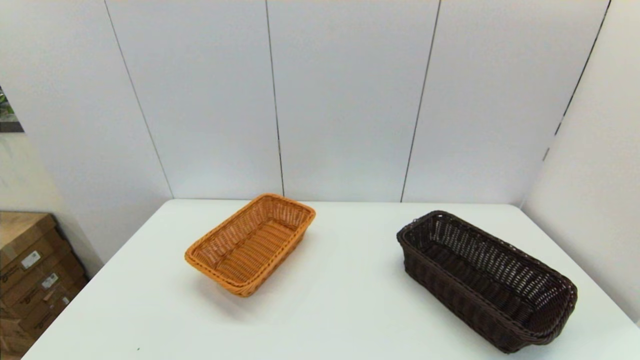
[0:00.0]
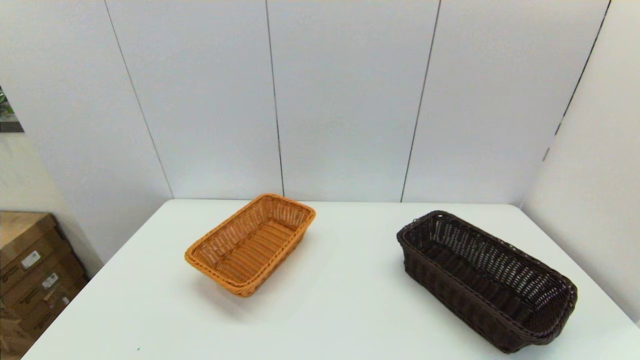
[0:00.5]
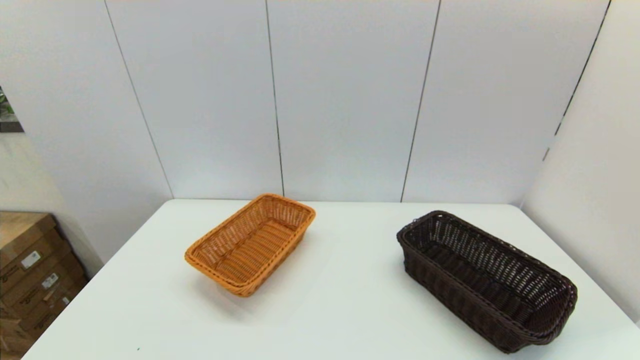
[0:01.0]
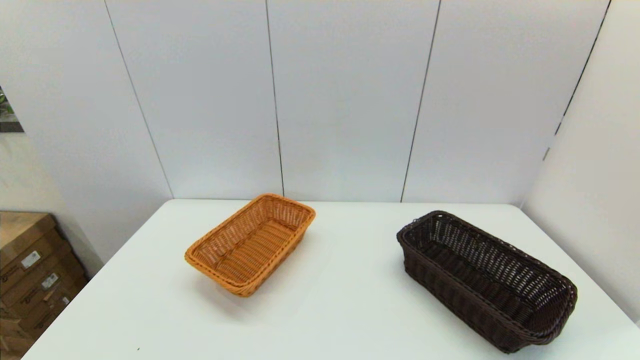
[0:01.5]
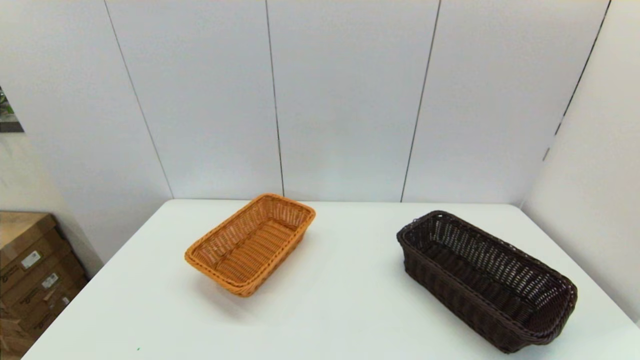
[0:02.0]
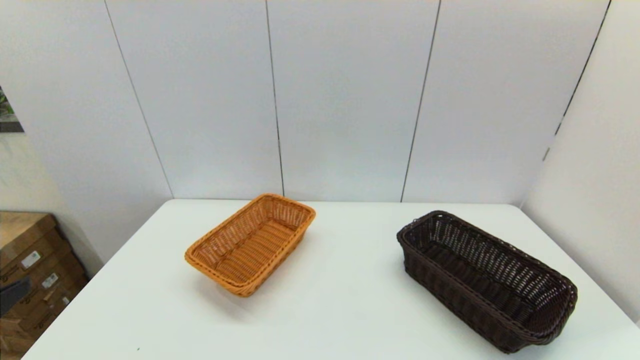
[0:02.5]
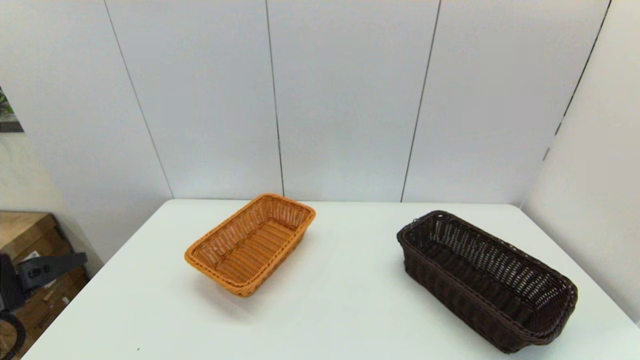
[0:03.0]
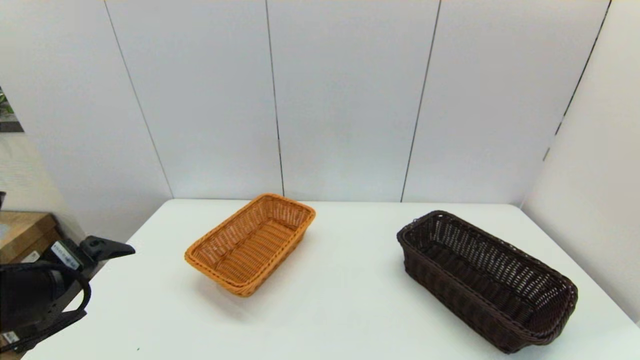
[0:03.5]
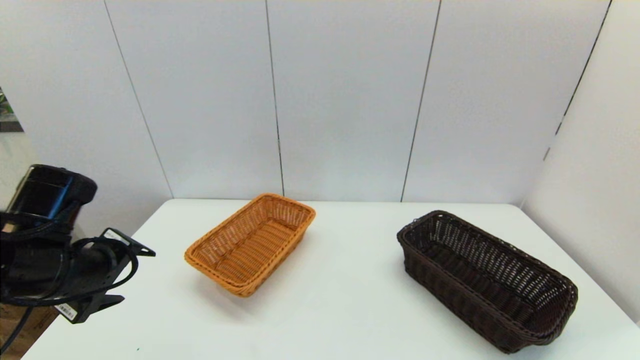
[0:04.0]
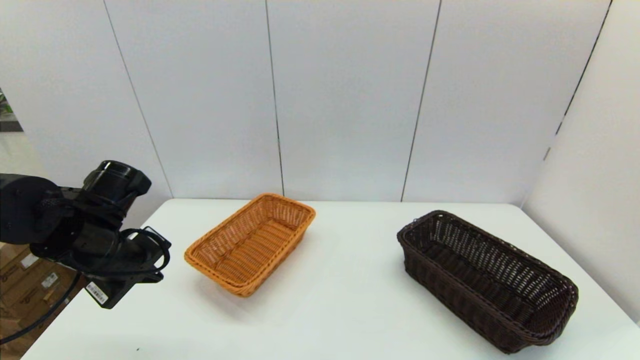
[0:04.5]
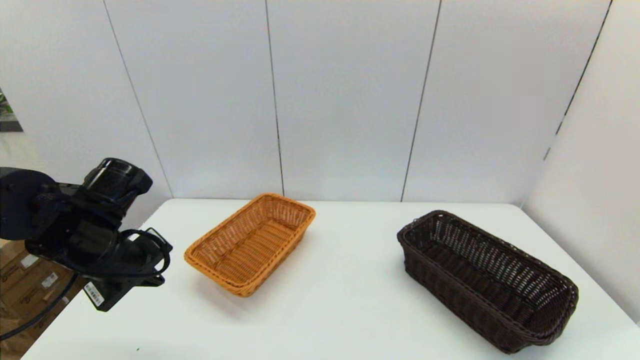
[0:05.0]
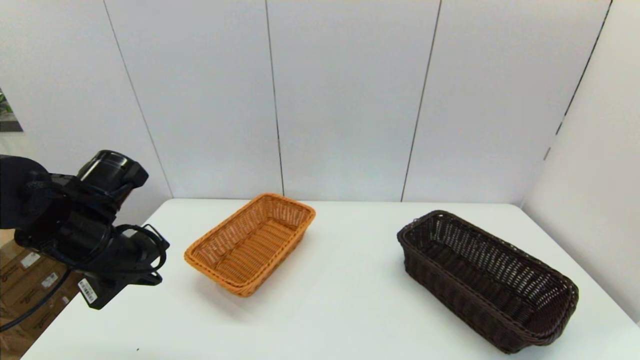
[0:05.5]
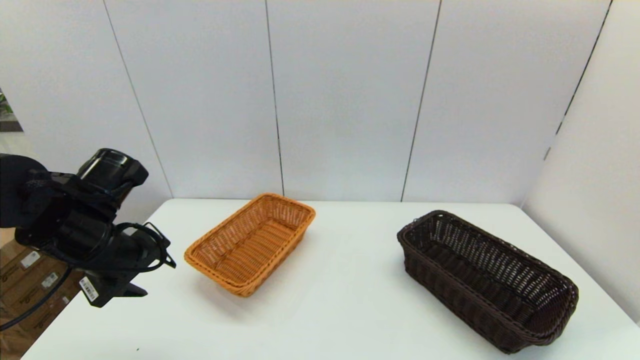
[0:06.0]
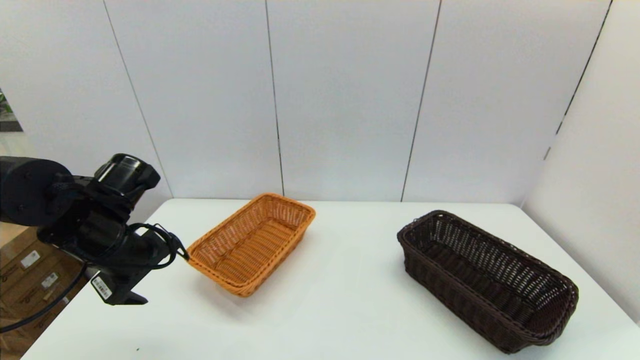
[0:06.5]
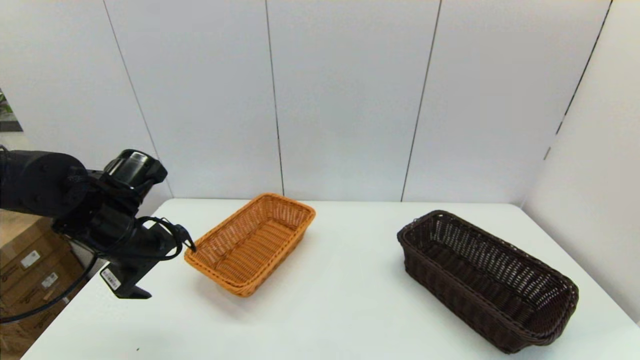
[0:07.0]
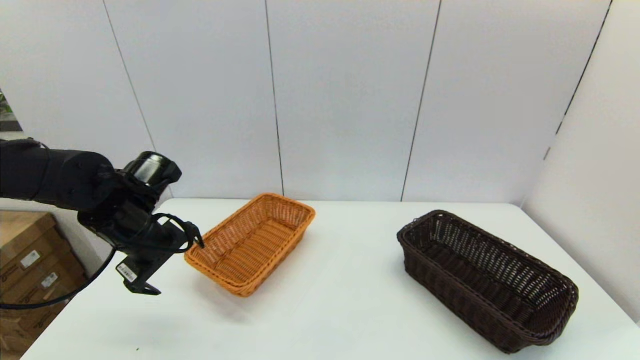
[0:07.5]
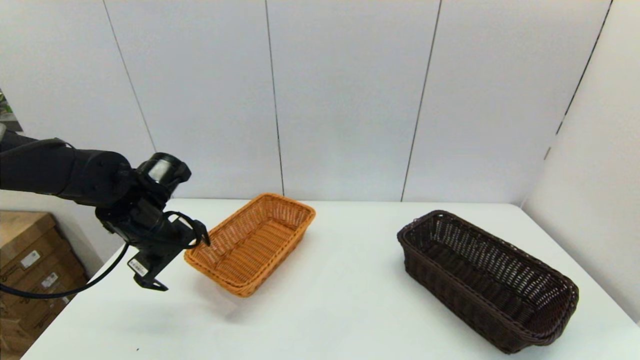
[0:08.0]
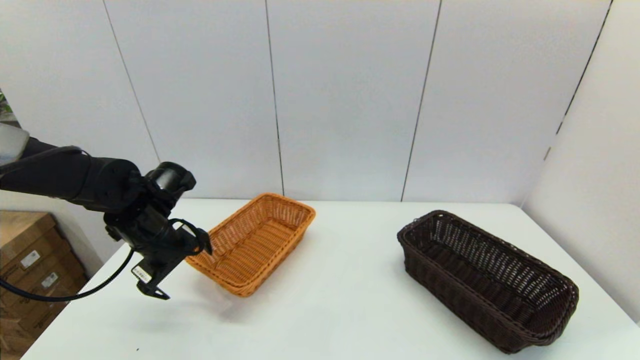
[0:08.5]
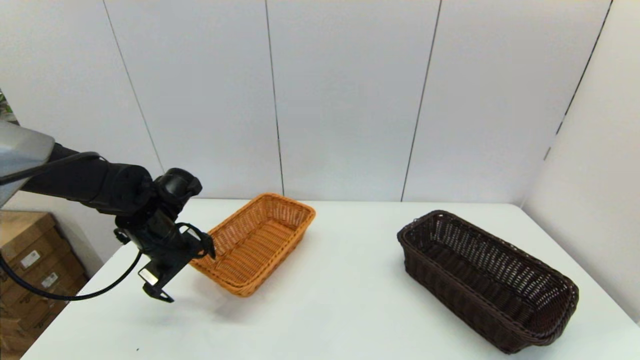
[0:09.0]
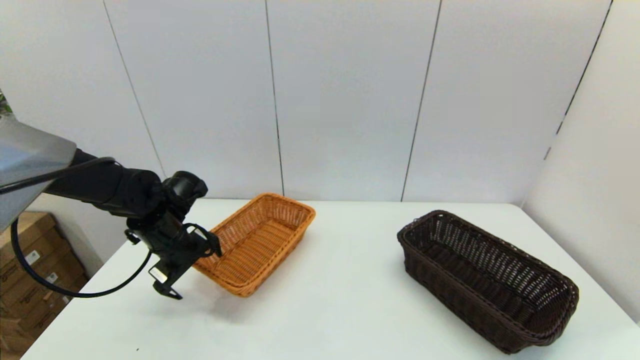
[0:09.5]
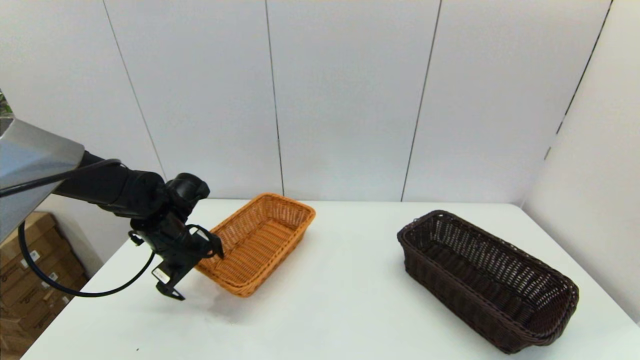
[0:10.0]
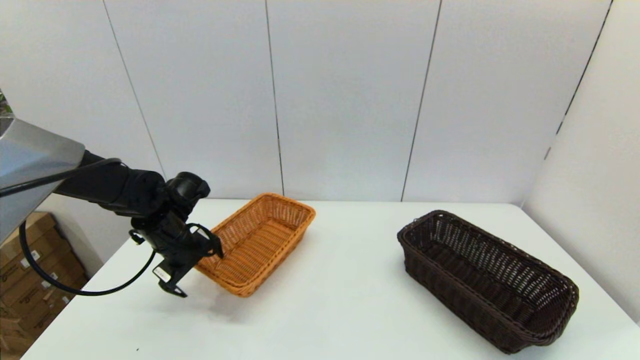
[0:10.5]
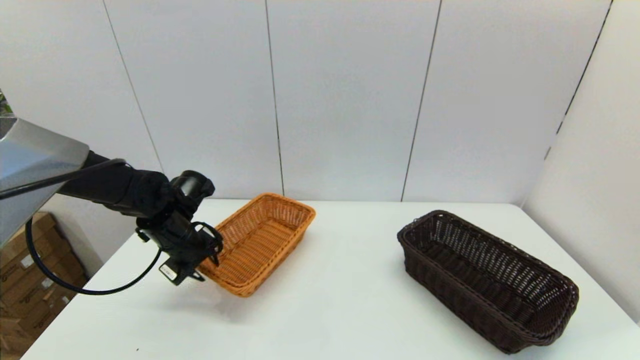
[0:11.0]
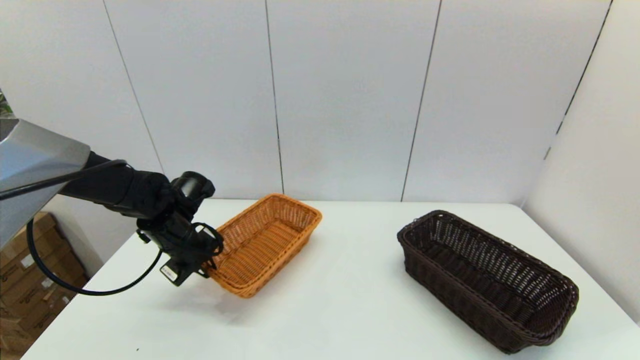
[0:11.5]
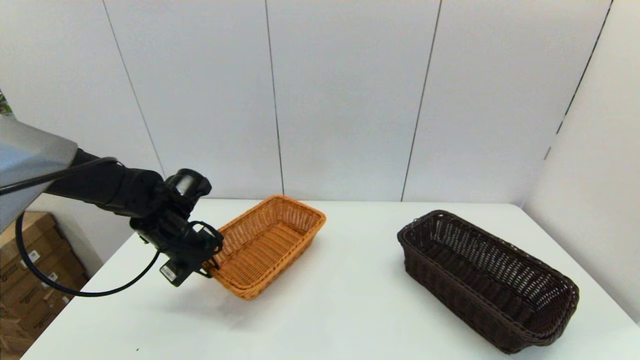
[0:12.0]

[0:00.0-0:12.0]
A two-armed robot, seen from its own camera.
Task of the whole recording: stack a basket on top of another basket.
Step, 0:02.0 to 0:11.5: Grasp the light basket with the left gripper.
0:02.0 to 0:04.0: The left gripper travels forward by approximately 20 cm.
0:04.0 to 0:06.0: The left gripper closes and opens again.
0:06.0 to 0:08.0: The left gripper shifts approximately 5 cm forward, and opens.
0:08.0 to 0:10.0: The left gripper is displaced downward by approximately 5 cm.
0:10.0 to 0:12.0: The left gripper closes.

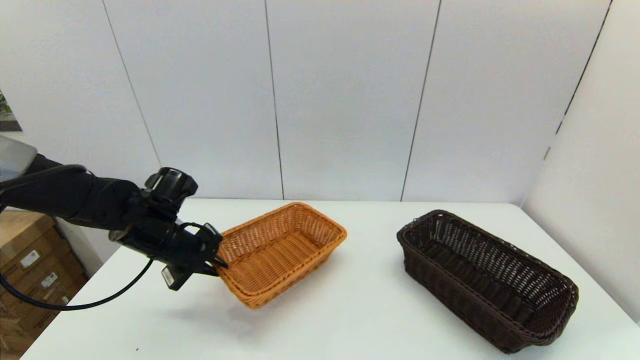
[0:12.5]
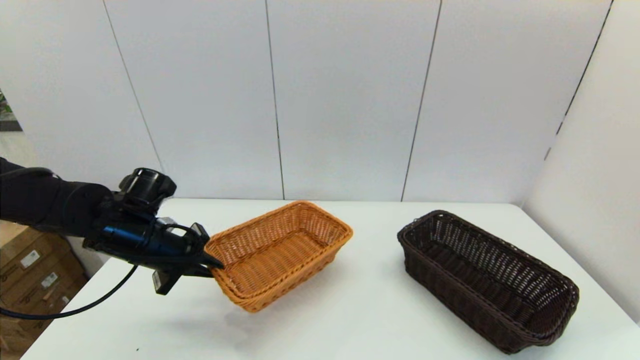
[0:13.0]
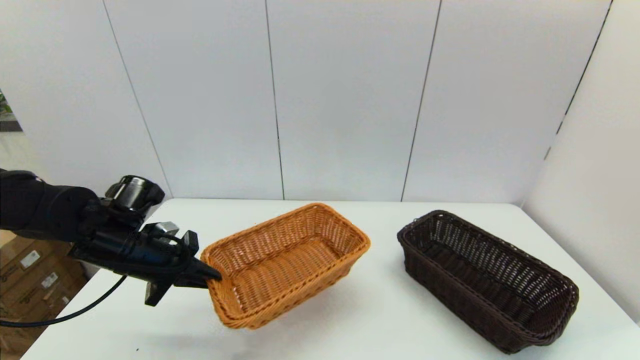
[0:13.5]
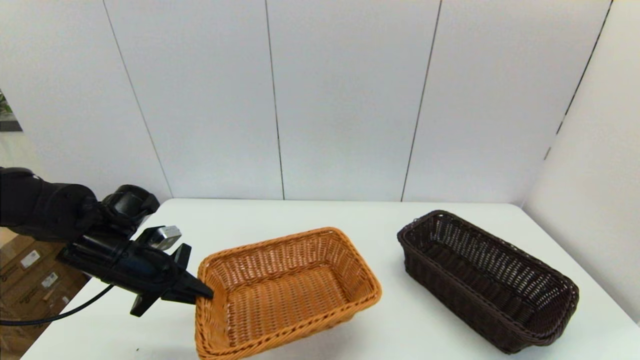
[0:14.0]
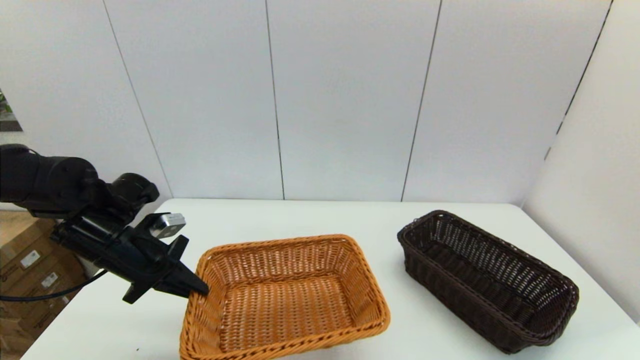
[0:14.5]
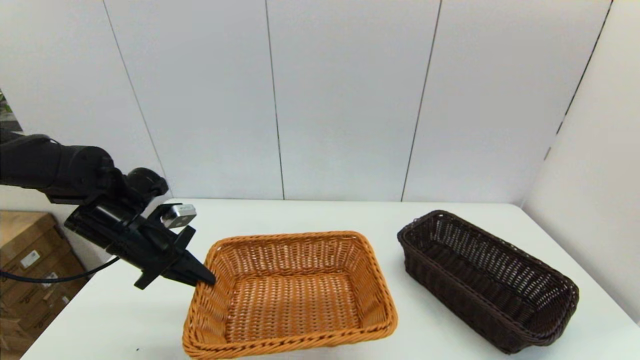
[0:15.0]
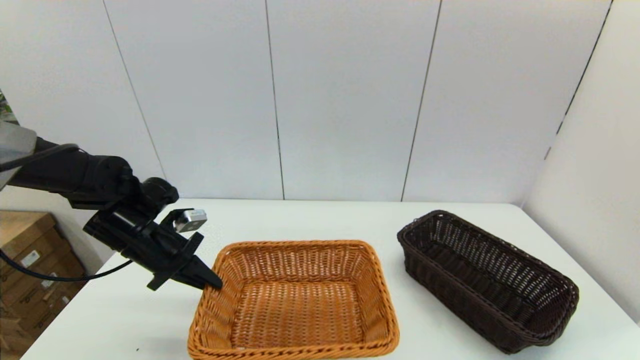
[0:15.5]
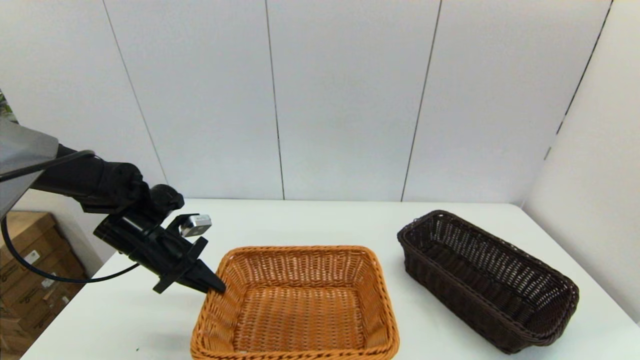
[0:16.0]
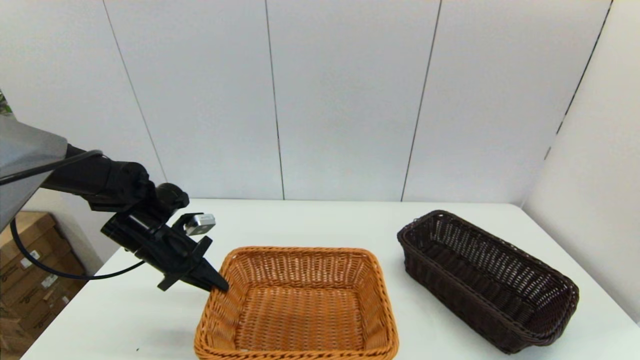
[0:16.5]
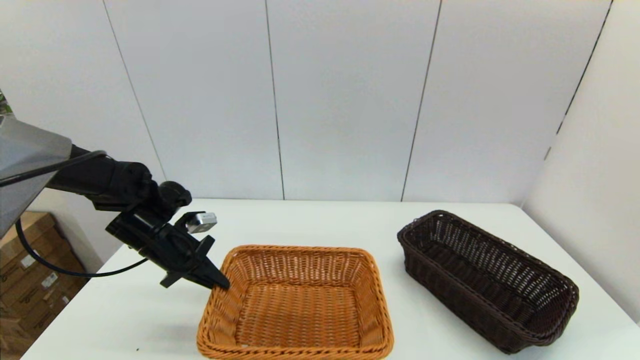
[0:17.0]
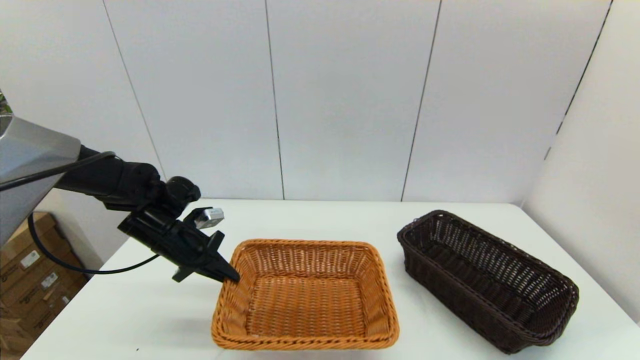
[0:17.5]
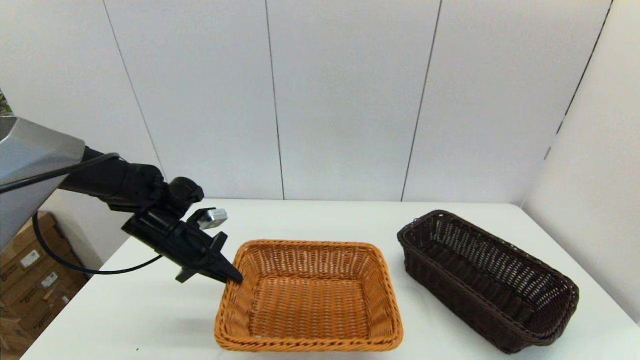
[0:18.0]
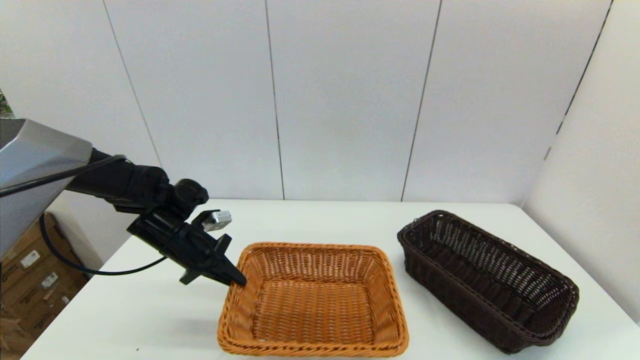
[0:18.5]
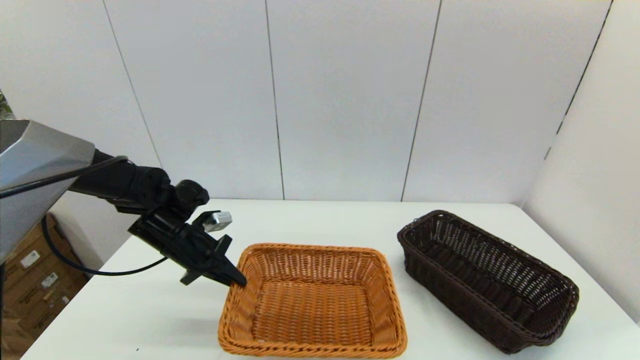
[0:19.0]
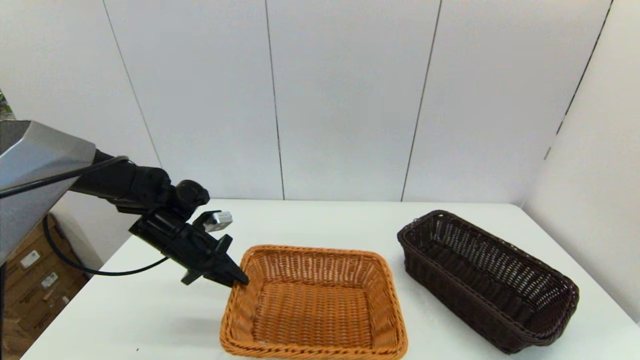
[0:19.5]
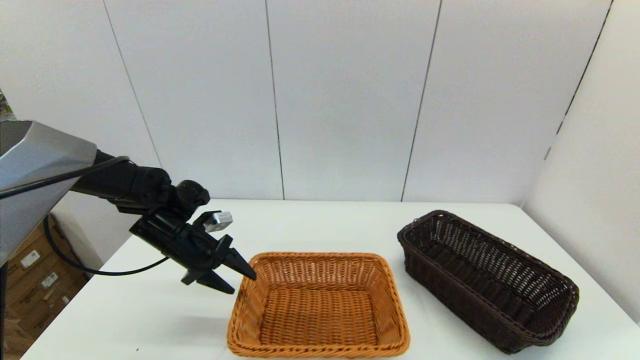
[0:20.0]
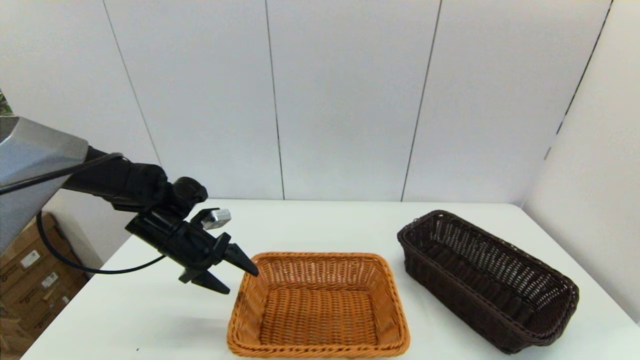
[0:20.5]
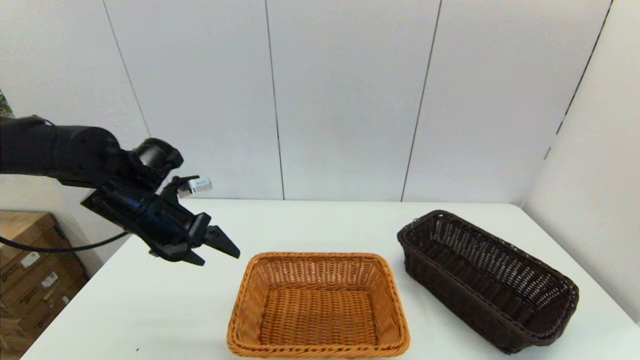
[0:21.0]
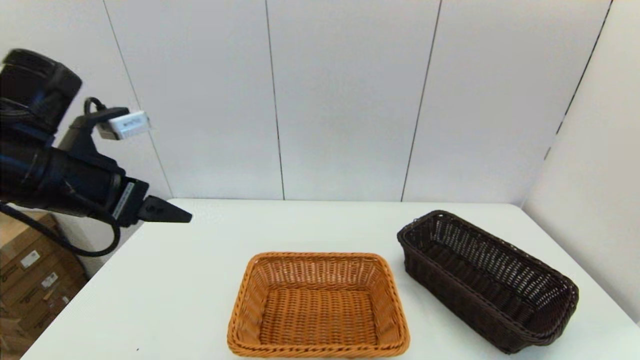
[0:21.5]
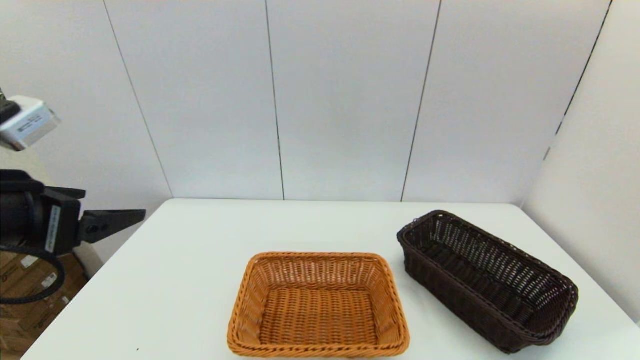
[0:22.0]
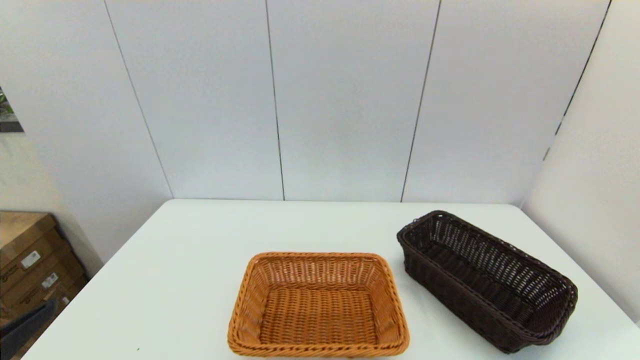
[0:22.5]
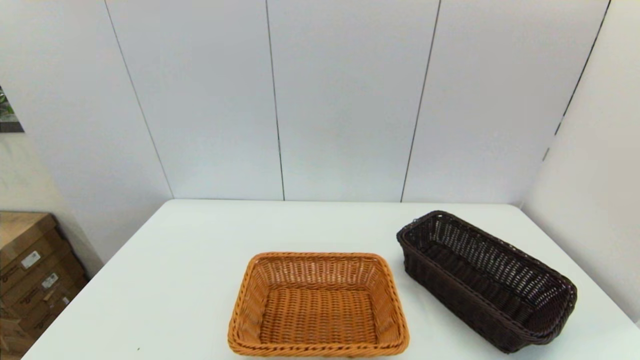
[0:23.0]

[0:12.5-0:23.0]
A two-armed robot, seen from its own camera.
Task of the whole recording: stack a basket on top of another basket.
Step, 0:12.5 to 0:20.0: Place the light basket on the middle of the table with the left gripper.
0:12.5 to 0:14.5: The left gripper shifts by roughly 5 cm.
0:14.5 to 0:16.5: The left gripper moves roughly 5 cm.
0:16.5 to 0:19.0: The grippers move only a little.
0:19.0 to 0:21.0: The left gripper is displaced upward by about 10 cm, and opens.
0:21.0 to 0:23.0: The left gripper moves backward, about 30 cm.
